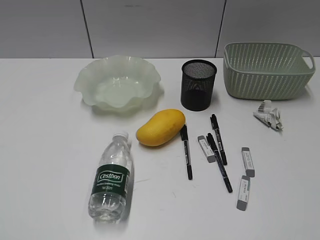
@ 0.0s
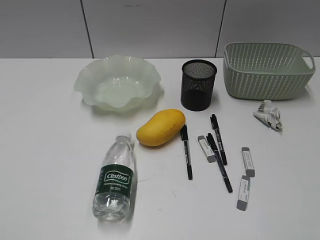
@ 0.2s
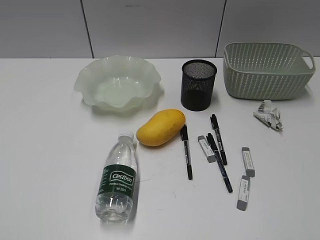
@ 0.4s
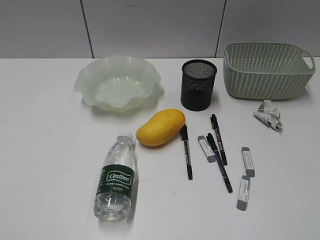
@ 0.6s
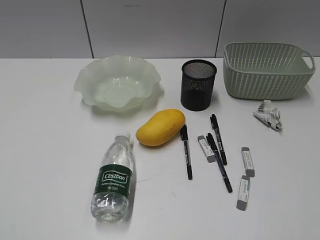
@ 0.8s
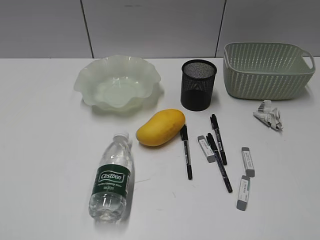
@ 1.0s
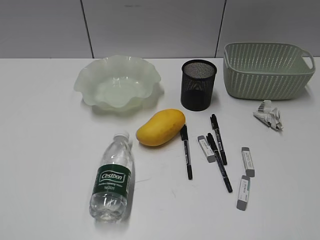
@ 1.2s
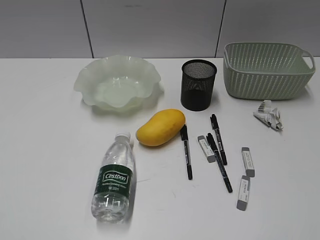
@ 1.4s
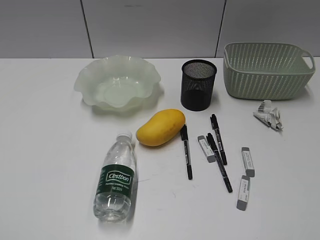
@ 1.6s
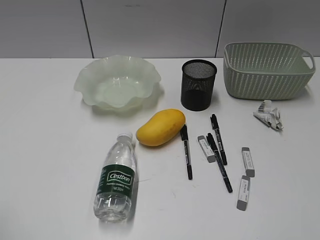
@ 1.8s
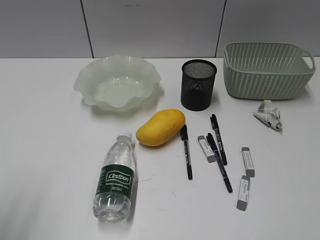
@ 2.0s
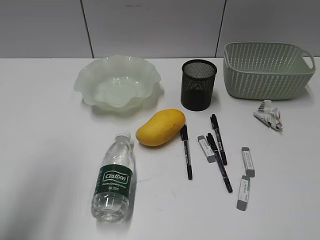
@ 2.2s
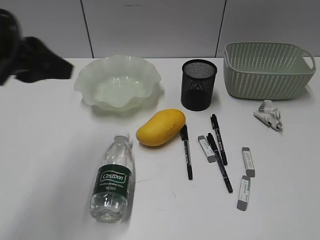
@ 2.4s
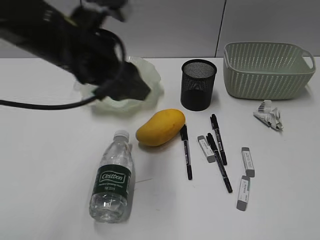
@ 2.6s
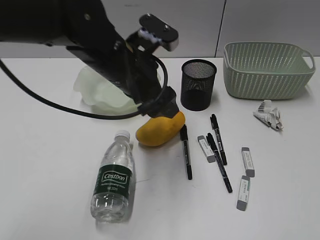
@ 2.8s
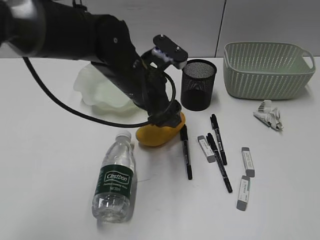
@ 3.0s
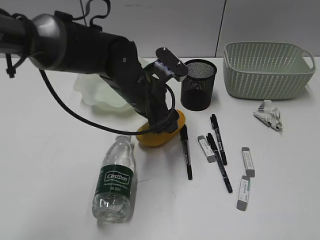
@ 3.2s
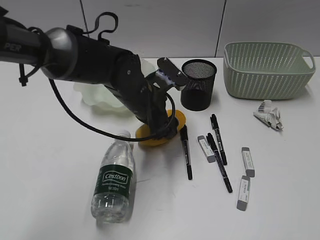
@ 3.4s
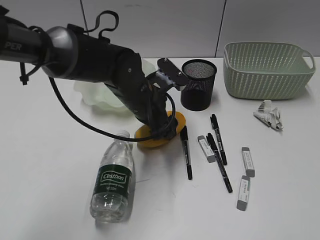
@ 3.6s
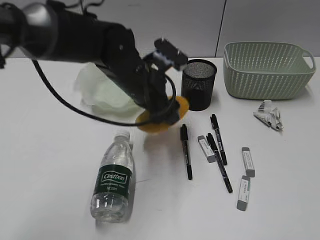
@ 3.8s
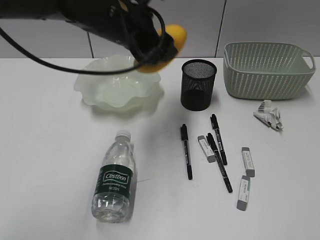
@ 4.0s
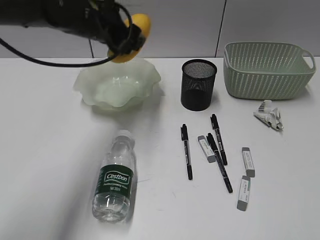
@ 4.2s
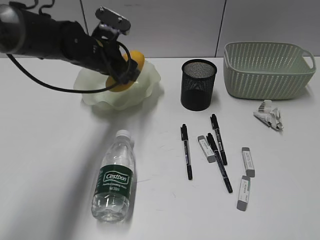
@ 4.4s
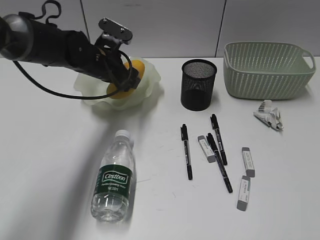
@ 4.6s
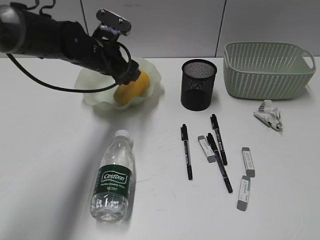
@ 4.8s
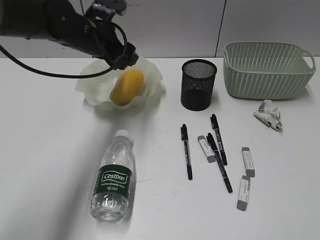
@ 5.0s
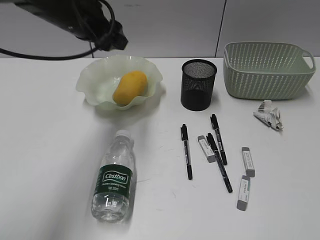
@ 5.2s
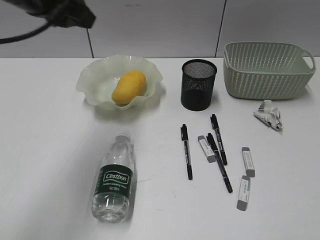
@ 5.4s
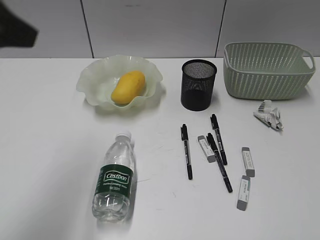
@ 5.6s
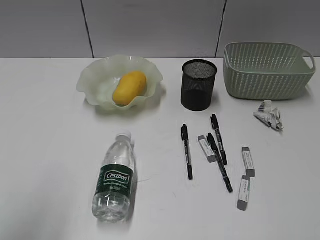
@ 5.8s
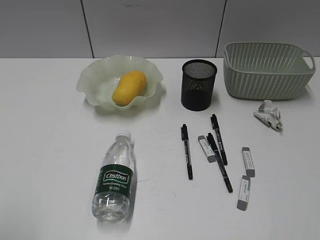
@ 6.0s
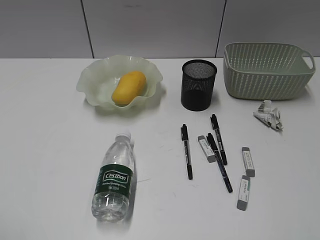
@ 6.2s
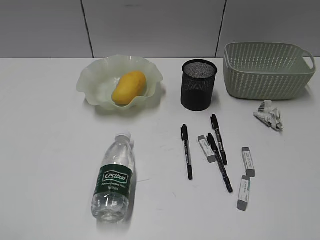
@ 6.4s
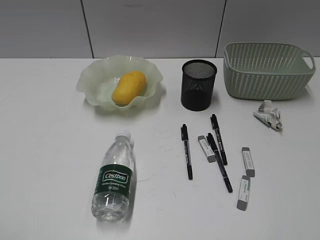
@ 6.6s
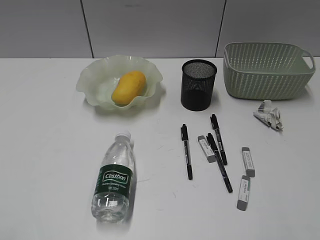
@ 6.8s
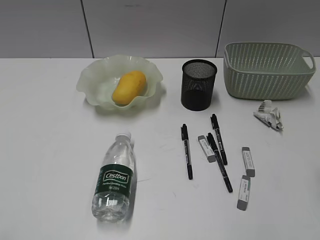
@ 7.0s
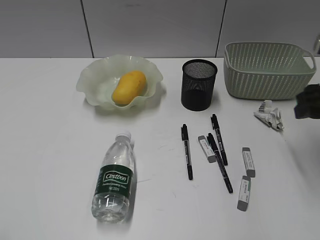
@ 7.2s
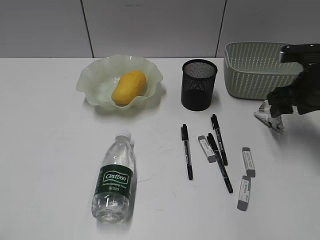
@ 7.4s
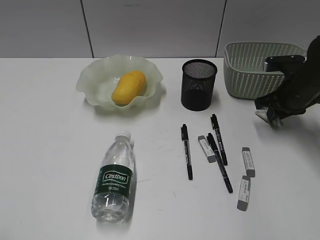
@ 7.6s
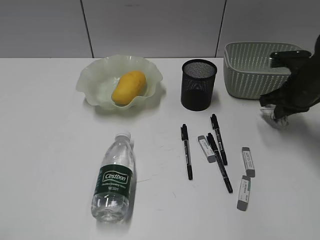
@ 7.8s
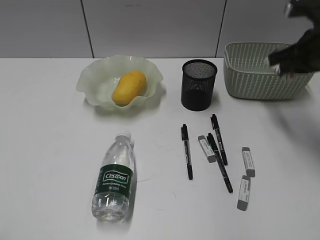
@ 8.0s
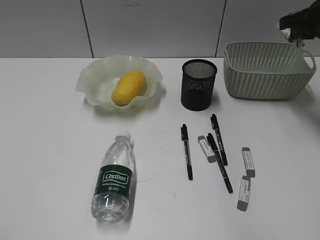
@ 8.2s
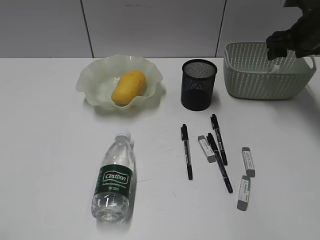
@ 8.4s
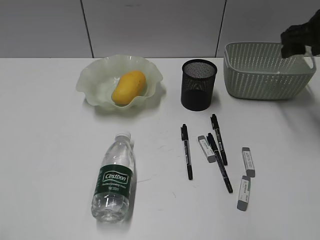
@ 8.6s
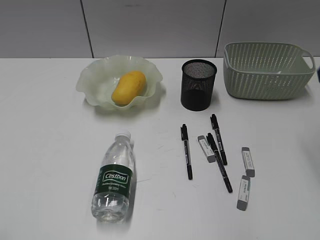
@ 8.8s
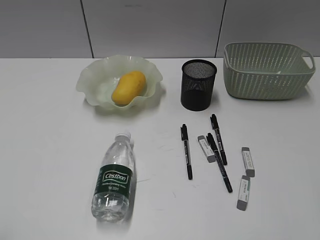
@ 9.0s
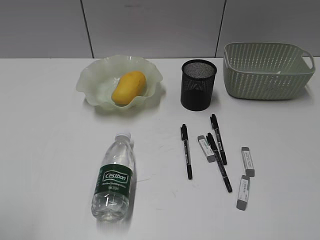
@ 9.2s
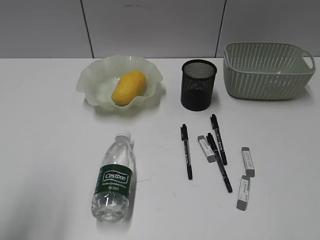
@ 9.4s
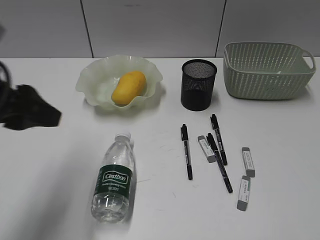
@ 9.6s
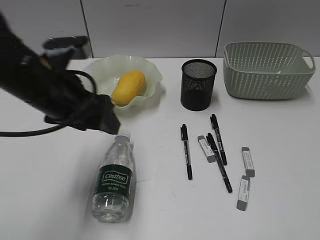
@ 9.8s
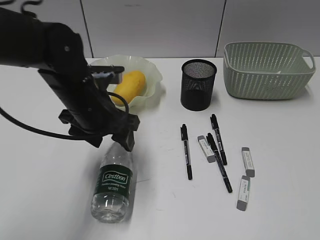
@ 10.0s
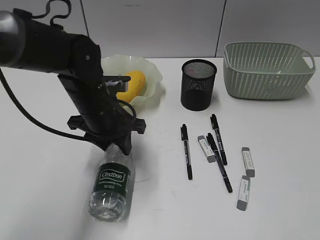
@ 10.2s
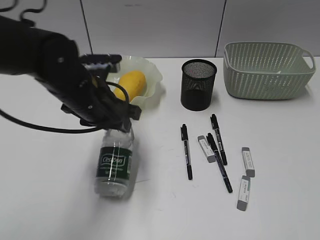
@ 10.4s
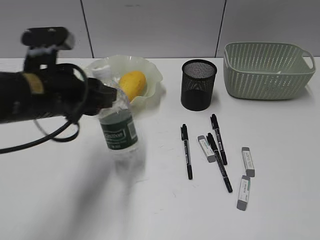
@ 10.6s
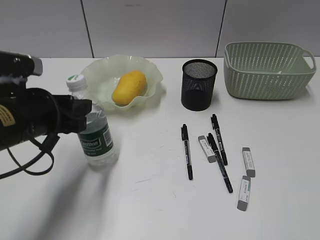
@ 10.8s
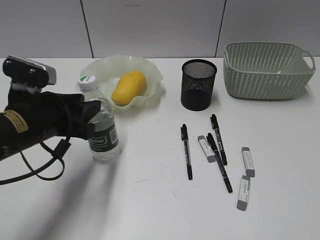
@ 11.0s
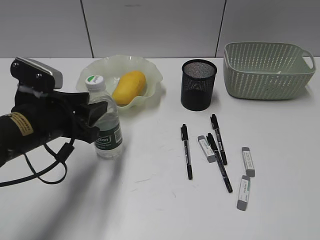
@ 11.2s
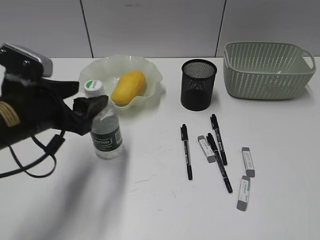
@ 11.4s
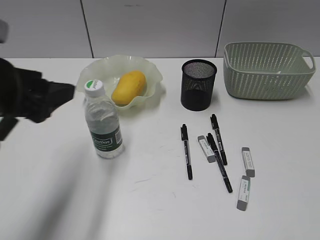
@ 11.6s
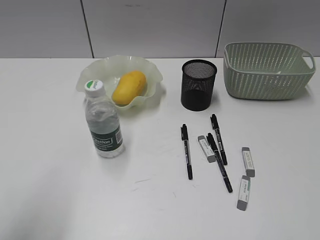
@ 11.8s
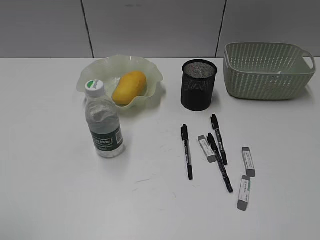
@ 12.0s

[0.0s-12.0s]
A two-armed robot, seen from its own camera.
Step, 1.6s to 3.6s: Grasp the mango with left gripper.
Step, 3.8s to 4.8s: Place the mango in the plate with left gripper.
Step, 5.0s to 7.6s: Grasp the waste paper with right gripper.
Step, 7.8s to 8.4s: Place the waste paper in the basket with right gripper.
Step, 8.6s to 10.2s: Grasp the bottle with left gripper.
Step, 10.4s to 11.4s: Stand the bottle with left gripper.
1.6s to 3.0s: The left gripper shifts roughly 40 cm forward and to the right, and opens up.
3.0s to 4.4s: The left gripper goes up and down, about 10 cm each way, reversing 2 times.
4.4s to 6.0s: The left gripper is displaced backward and to the left by some 40 cm, and closes up.
6.0s to 7.6s: The right gripper goes some 40 cm forward and downward, and opens, then closes once more.
7.6s to 9.0s: The right gripper goes forward and backward, roughly 35 cm each way, reversing 2 times, and opens.
9.0s to 10.4s: The right gripper heads backward, covering about 15 cm. Meanwhile the left gripper moves forward and to the right, roughly 35 cm, and opens and closes again.
10.4s to 12.0s: The left gripper moves backward, to the left and upward, about 35 cm.

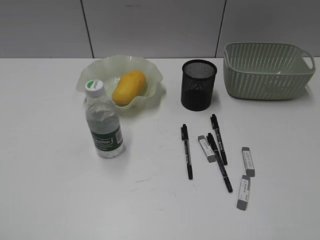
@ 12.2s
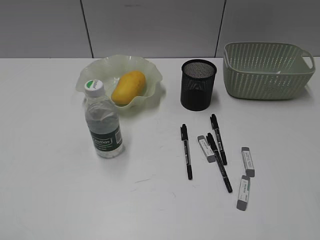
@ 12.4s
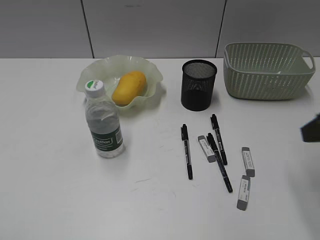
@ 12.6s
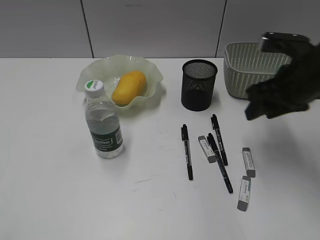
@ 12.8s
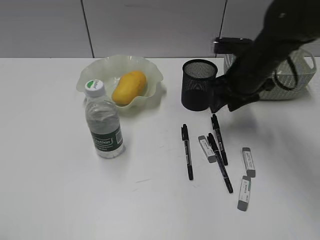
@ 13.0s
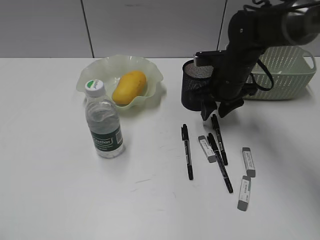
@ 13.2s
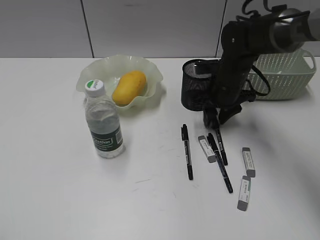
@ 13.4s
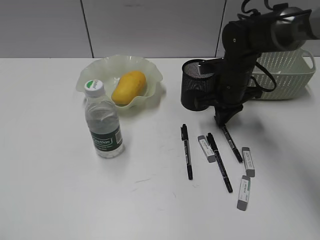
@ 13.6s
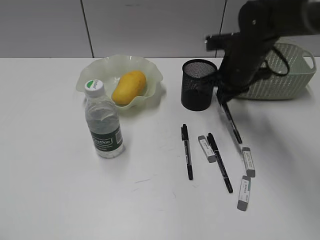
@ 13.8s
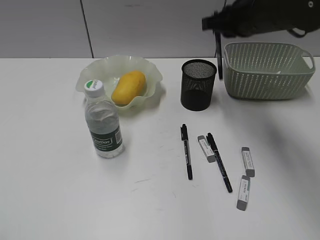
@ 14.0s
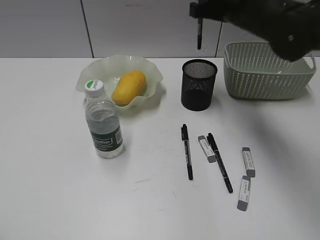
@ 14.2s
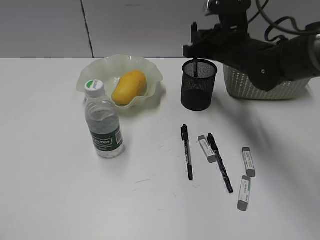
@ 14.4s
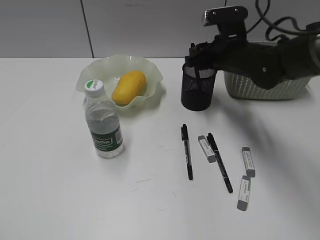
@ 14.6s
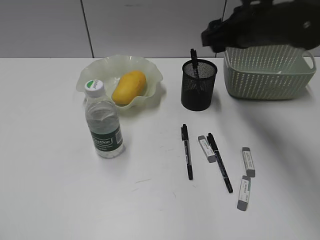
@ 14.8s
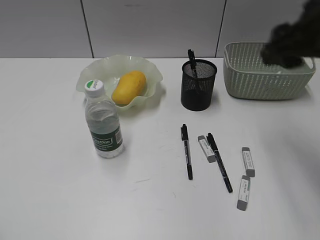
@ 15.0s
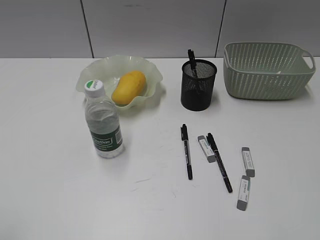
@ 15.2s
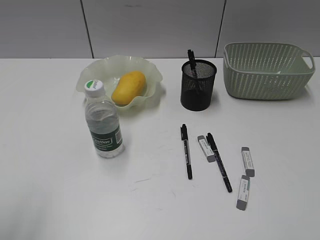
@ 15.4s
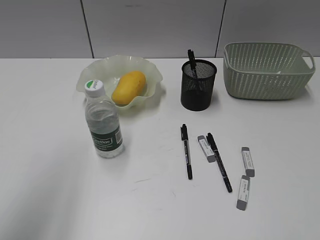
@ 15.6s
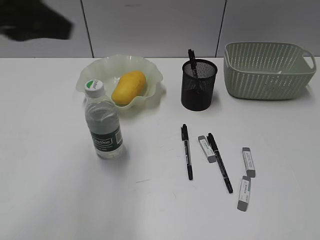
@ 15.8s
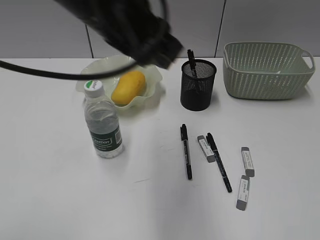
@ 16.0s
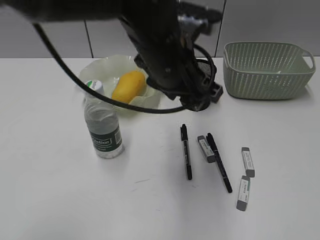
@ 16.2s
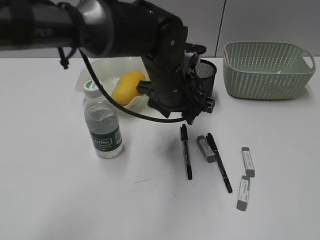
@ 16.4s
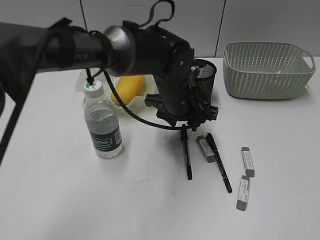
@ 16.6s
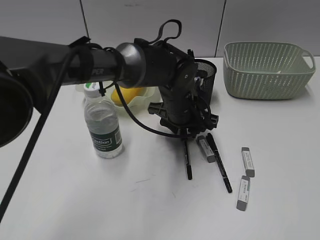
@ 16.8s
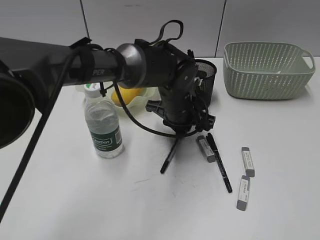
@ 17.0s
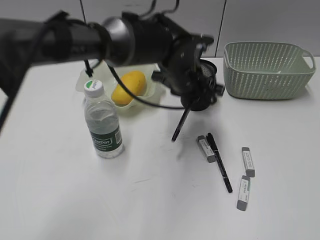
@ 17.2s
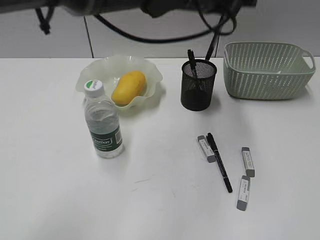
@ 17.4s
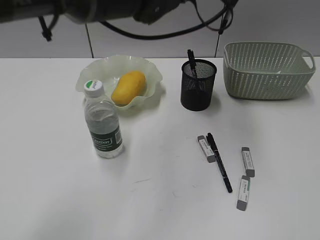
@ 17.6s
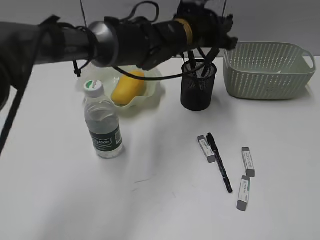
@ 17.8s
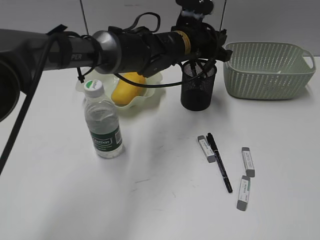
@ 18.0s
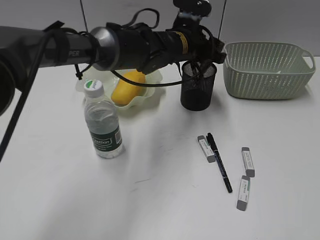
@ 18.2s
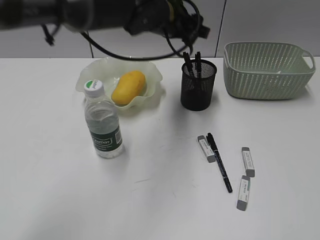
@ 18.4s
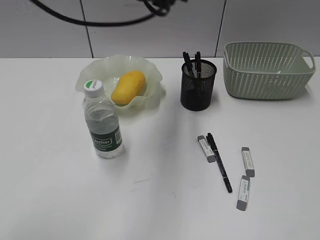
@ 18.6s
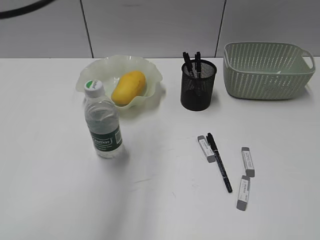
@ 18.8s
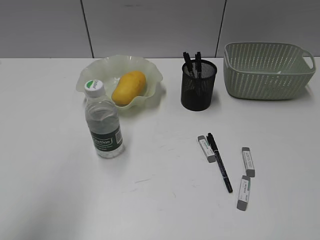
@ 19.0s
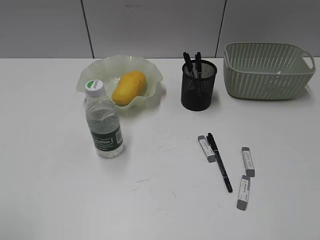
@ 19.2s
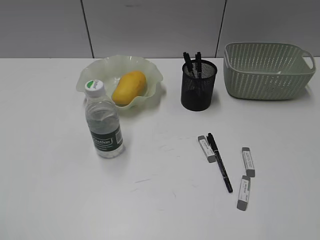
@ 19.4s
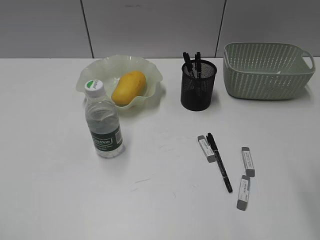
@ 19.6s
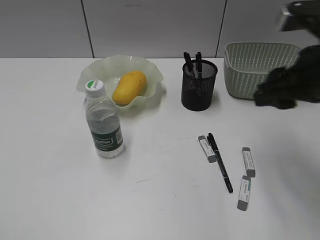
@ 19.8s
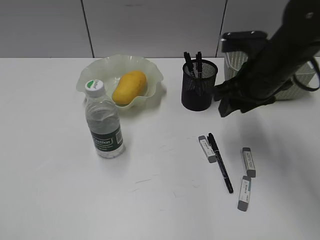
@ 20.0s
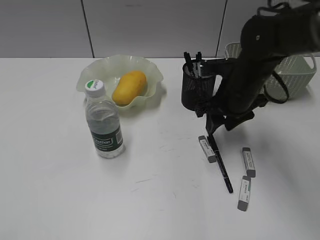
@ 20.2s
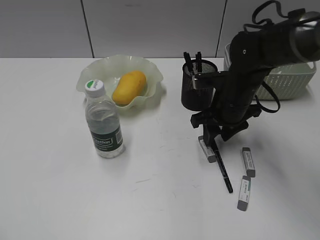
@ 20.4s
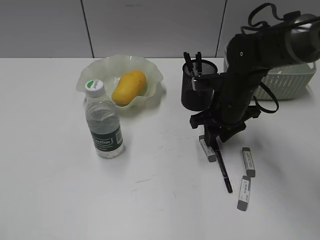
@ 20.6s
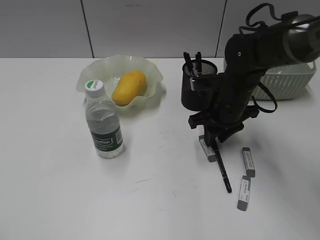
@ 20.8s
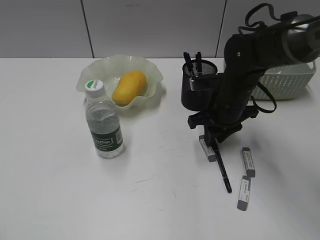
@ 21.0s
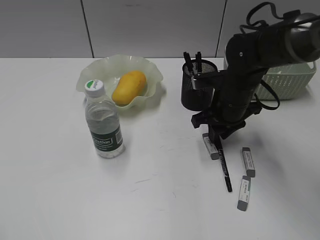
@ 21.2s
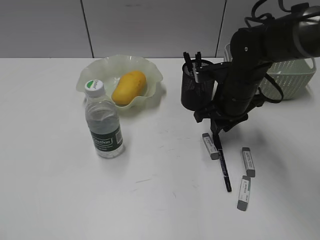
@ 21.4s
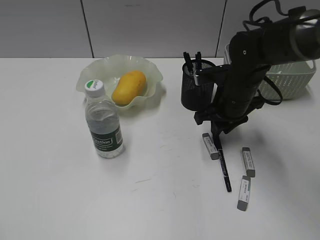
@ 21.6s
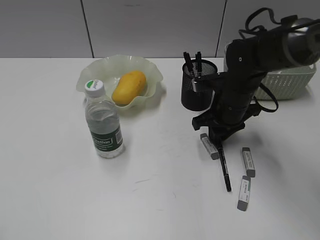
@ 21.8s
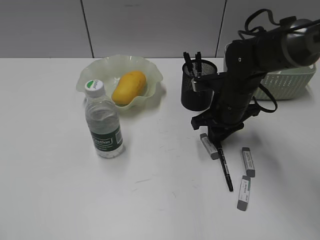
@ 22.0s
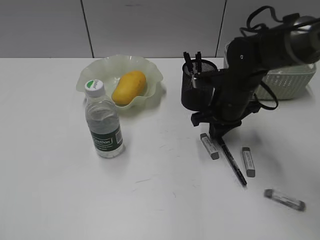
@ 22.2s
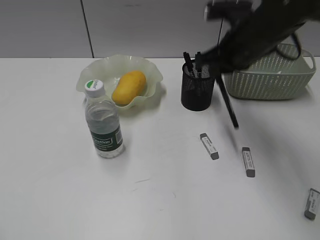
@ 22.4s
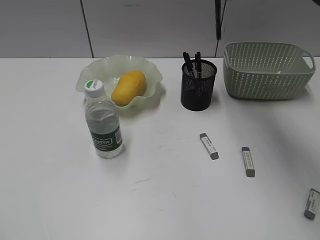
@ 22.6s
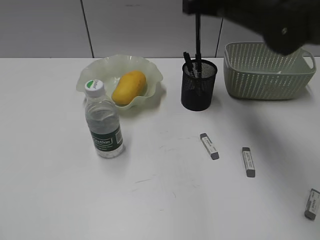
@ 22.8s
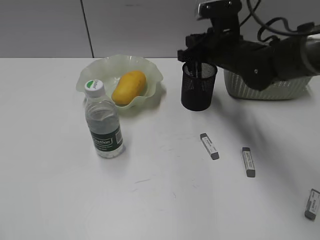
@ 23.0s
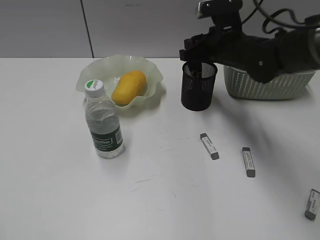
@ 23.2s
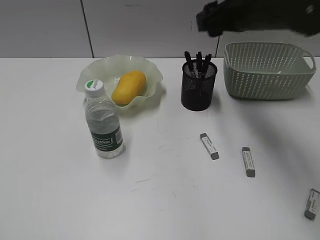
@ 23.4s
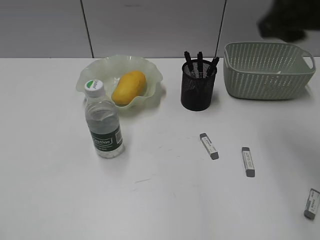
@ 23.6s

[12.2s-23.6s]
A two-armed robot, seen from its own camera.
Step, 12.2s to 13.6s: Grasp the black pen with right gripper.
Step, 13.8s to 14.8s: Place the black pen in pen holder with right gripper.
Step, 15.0s to 17.0s: Grasp the black pen with left gripper.
Step, 17.2s to 18.2s: Place the black pen in pen holder with left gripper.
Step, 18.4s to 22.0s: Grasp the black pen with right gripper.
Step, 22.2s to 23.2s: Place the black pen in pen holder with right gripper.
12.2s to 13.6s: The right gripper shifts about 40 cm forward and downward, and closes.
13.6s to 15.0s: The right gripper moves up and down over some 20 cm, changing direction 2 times, and opens.
15.0s to 16.4s: The left gripper moves to the right and forward, about 50 cm, and opens up. The right gripper goes roughly 30 cm backward and to the right.
16.4s to 17.8s: The left gripper moves up and down over some 20 cm, changing direction 2 times, and closes its fingers.
17.8s to 19.4s: The left gripper moves backward and to the left, some 60 cm, and opens up, while the right gripper moves forward, roughly 5 cm.
19.4s to 20.8s: The right gripper travels forward, downward and to the left by approximately 40 cm.
20.8s to 22.2s: The right gripper closes.
22.2s to 23.6s: The right gripper goes up and down, roughly 25 cm each way, reversing 2 times, and opens up.
